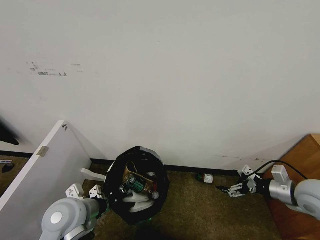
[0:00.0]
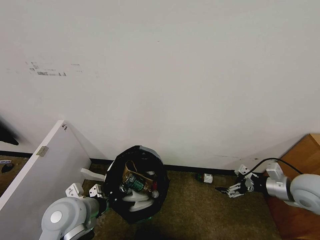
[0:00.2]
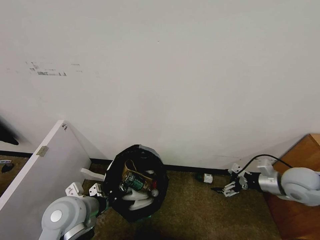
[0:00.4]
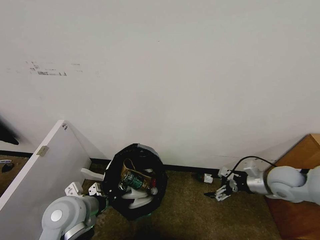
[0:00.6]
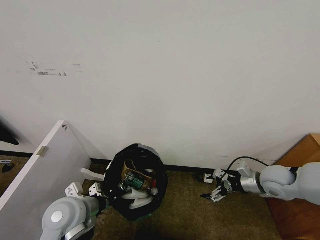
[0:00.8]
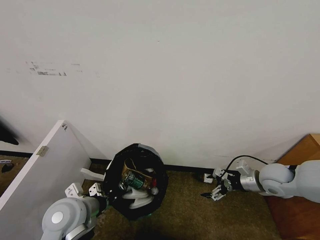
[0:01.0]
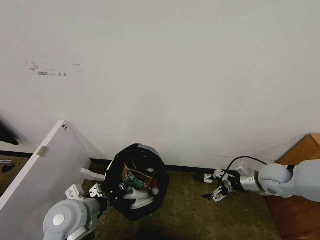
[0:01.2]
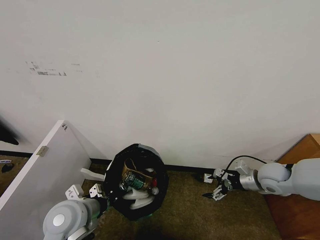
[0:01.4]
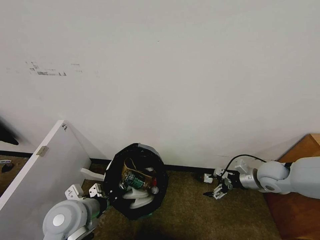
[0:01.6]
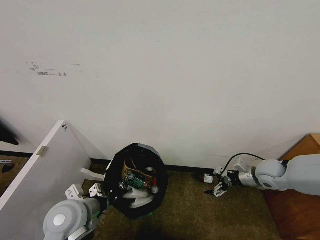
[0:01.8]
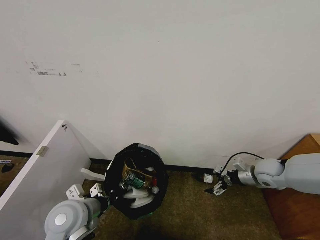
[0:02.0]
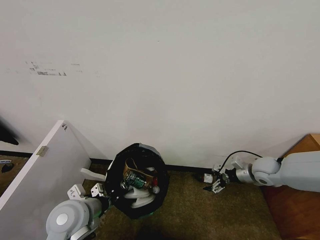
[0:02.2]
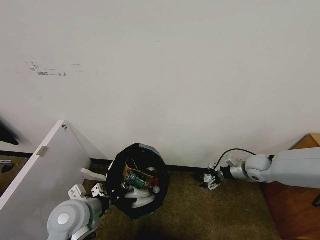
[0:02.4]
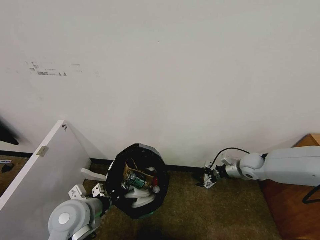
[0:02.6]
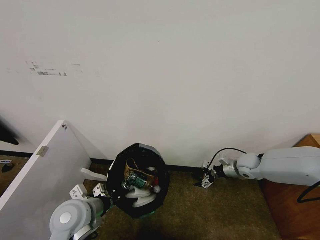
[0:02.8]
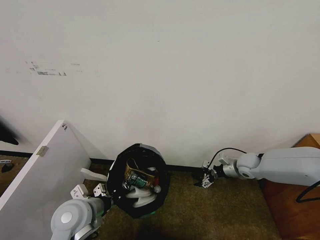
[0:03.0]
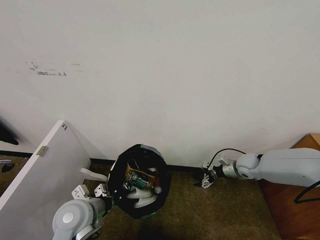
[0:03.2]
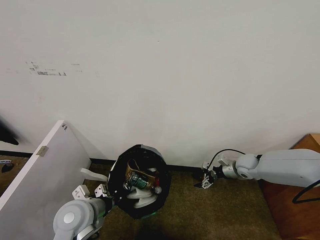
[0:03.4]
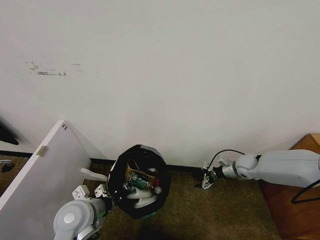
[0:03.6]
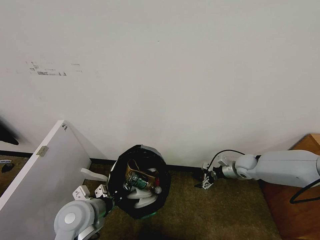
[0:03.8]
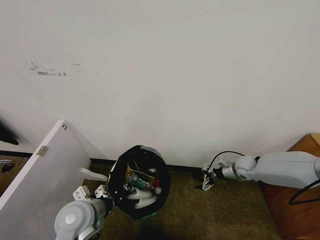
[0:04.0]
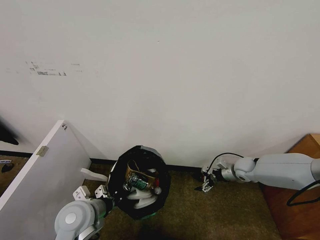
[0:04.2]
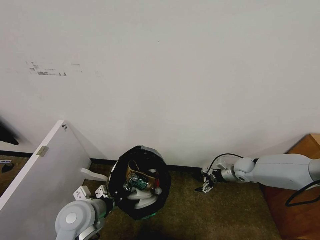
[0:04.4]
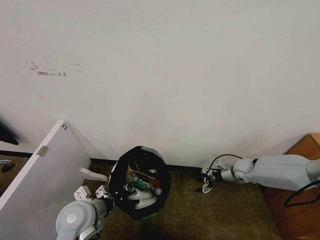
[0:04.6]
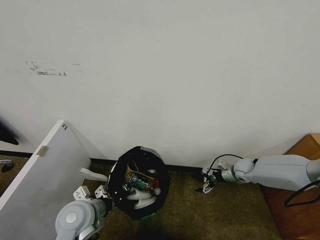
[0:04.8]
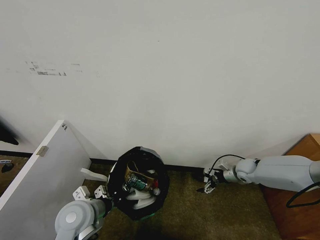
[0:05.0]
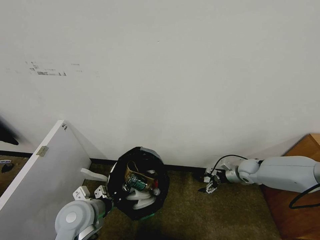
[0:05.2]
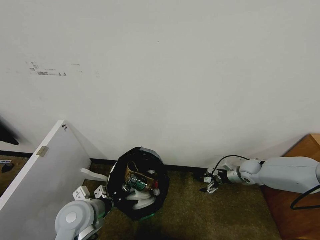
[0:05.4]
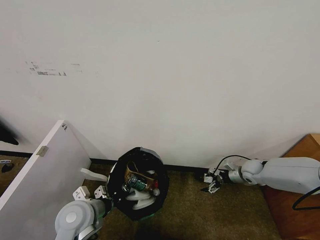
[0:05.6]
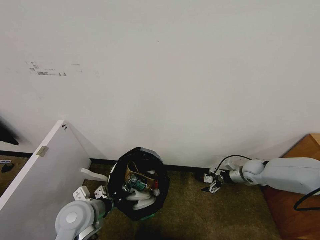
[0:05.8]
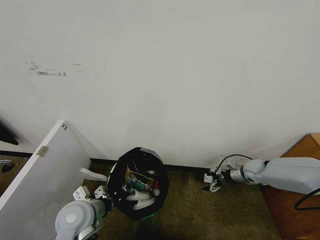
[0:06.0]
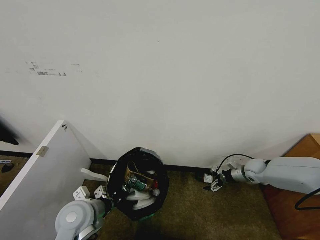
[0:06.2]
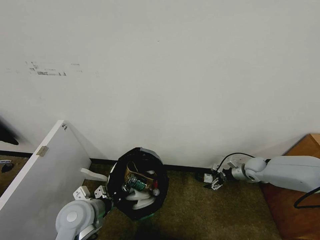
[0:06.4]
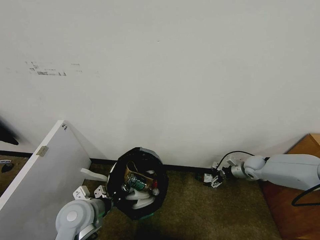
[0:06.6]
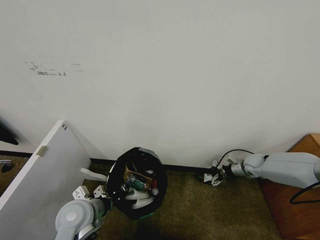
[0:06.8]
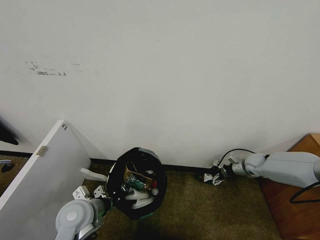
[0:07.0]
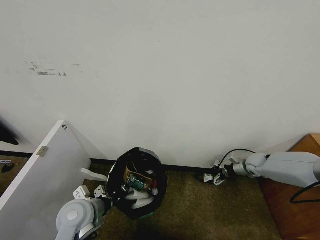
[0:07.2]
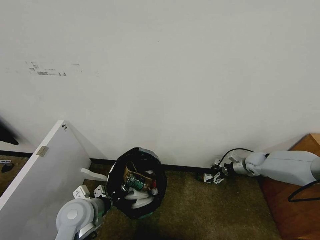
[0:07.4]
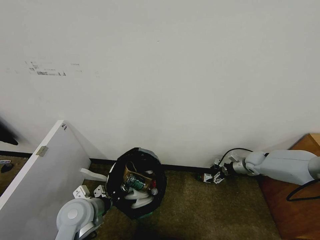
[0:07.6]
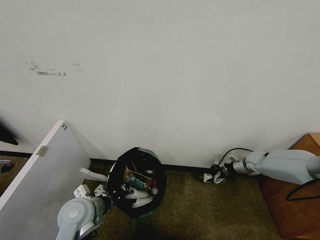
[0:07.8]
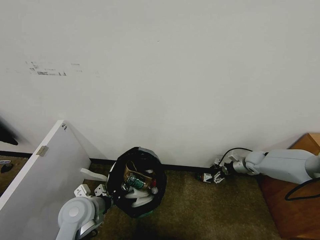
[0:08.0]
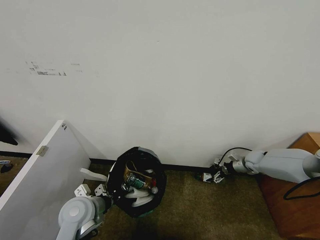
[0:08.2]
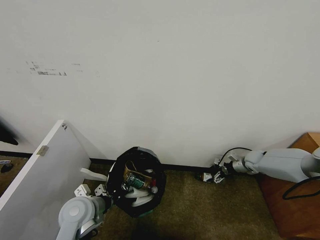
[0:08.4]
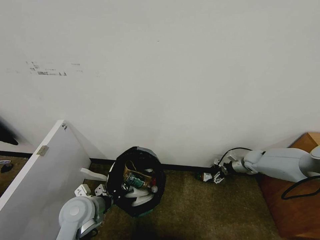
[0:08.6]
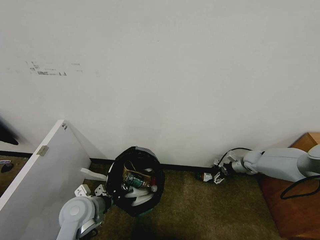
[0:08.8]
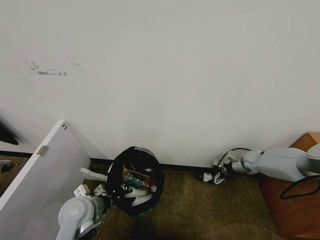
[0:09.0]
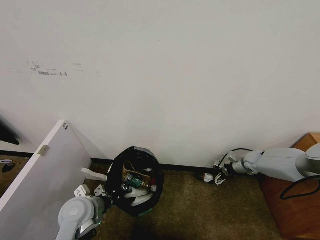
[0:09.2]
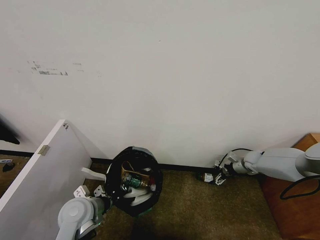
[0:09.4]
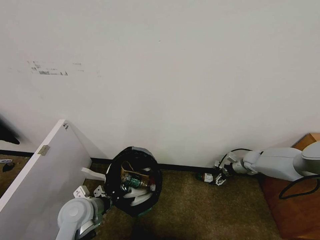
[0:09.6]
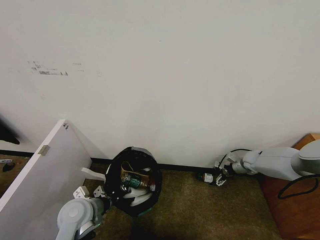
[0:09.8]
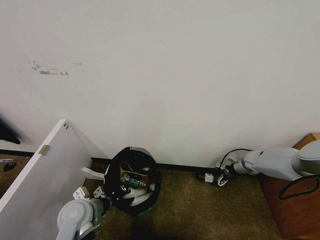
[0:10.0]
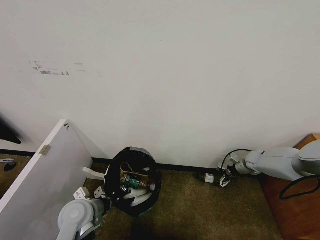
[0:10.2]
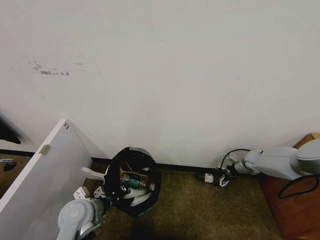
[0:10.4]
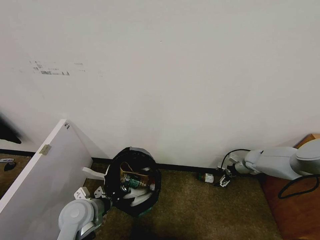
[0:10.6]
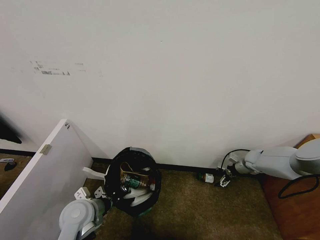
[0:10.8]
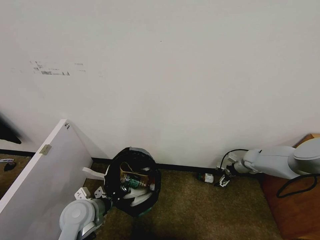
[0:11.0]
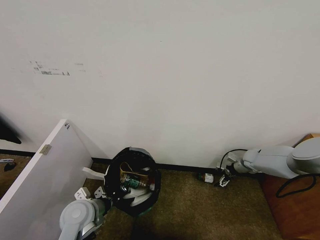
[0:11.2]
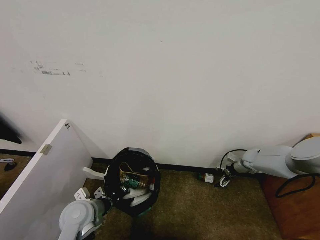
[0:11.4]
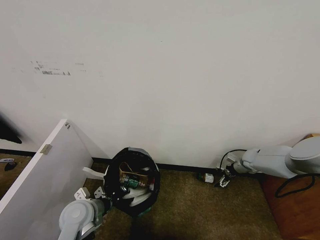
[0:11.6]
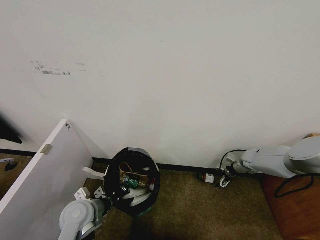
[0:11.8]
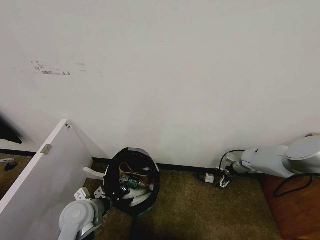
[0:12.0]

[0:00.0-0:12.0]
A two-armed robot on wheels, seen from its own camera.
Task of the whole recording: Pick up the trash bin and place the garbage on the floor into it.
0:00.0 to 0:01.6: The right gripper goes approximately 10 cm forward.
0:01.6 to 0:03.0: The right gripper is displaced forward and downward by roughly 10 cm.
0:03.0 to 0:04.4: The right gripper ends up roughly 5 cm from where it was.
0:04.4 to 0:06.0: The grippers stay close to where they were, moving slightly.
0:06.0 to 0:07.6: The right gripper moves about 5 cm.
0:07.6 to 0:12.0: The grippers stay close to where they were, moving slightly.

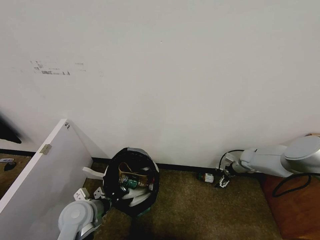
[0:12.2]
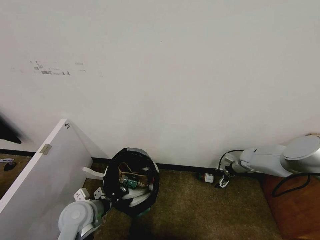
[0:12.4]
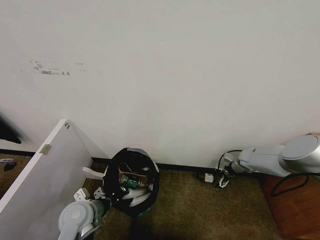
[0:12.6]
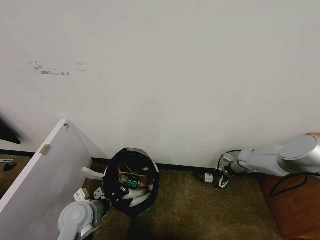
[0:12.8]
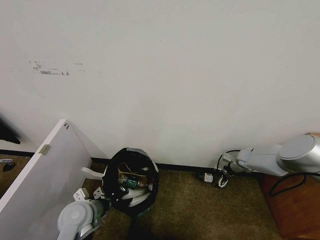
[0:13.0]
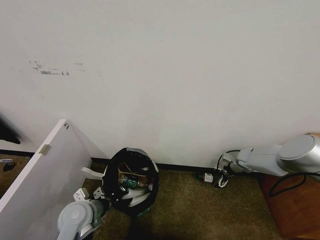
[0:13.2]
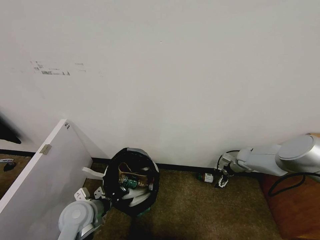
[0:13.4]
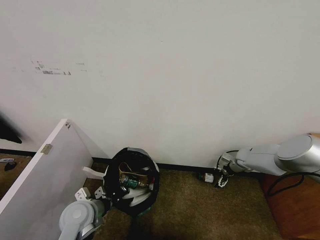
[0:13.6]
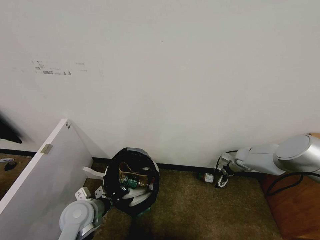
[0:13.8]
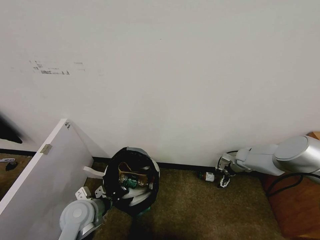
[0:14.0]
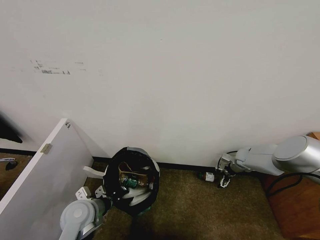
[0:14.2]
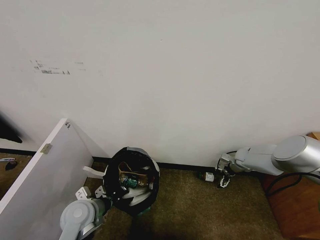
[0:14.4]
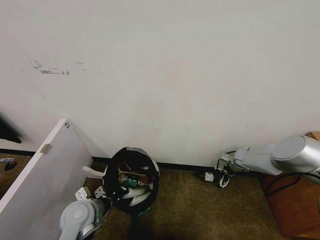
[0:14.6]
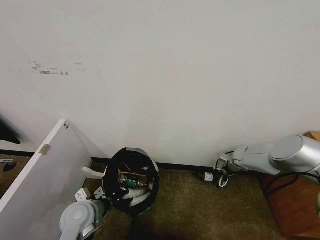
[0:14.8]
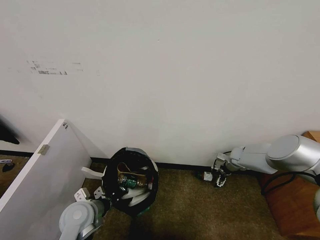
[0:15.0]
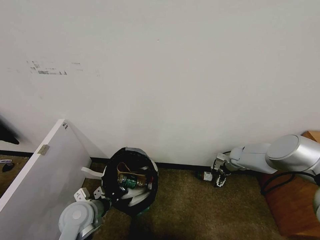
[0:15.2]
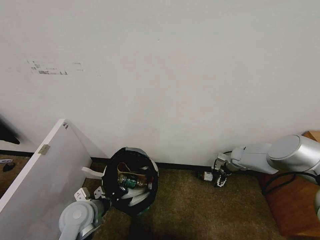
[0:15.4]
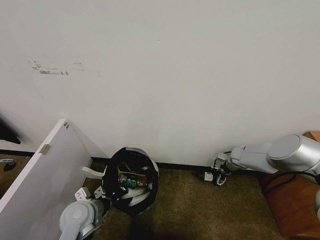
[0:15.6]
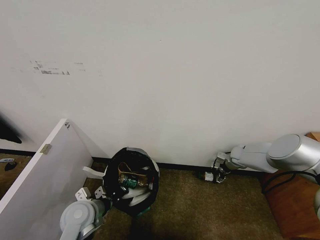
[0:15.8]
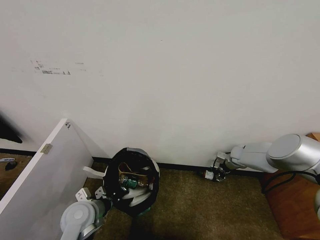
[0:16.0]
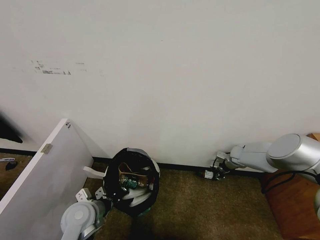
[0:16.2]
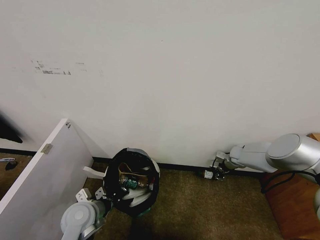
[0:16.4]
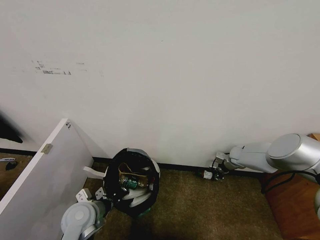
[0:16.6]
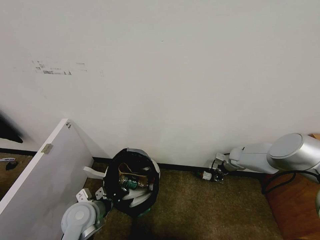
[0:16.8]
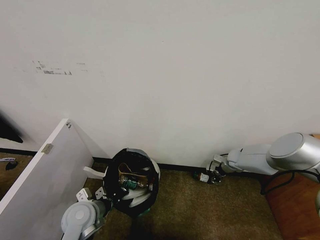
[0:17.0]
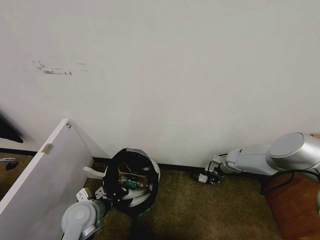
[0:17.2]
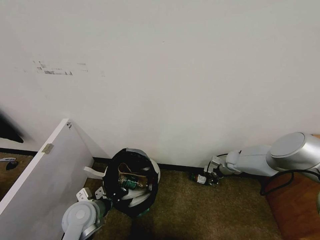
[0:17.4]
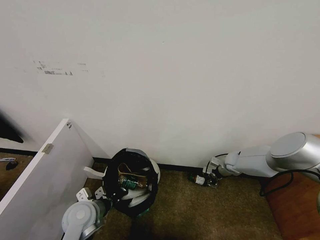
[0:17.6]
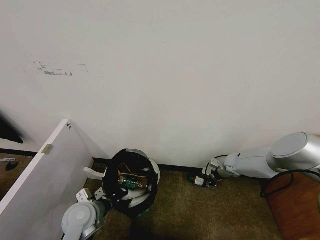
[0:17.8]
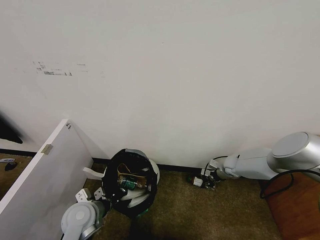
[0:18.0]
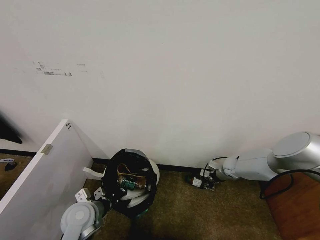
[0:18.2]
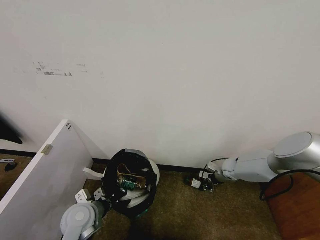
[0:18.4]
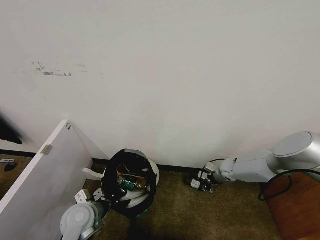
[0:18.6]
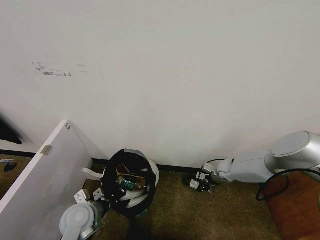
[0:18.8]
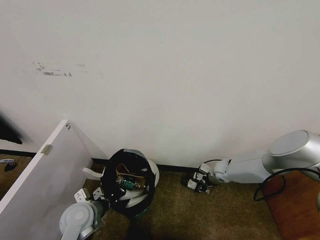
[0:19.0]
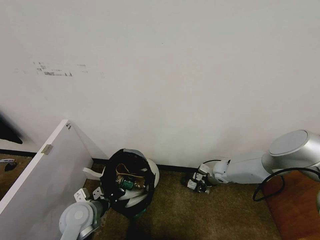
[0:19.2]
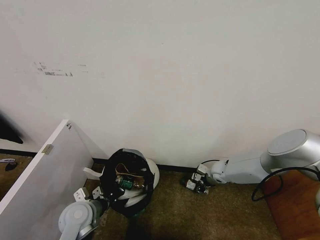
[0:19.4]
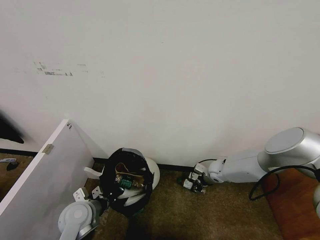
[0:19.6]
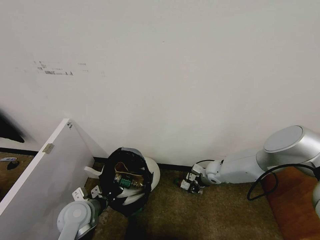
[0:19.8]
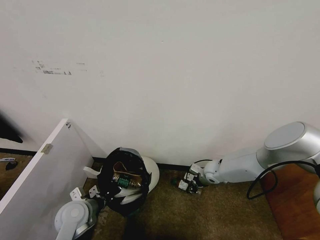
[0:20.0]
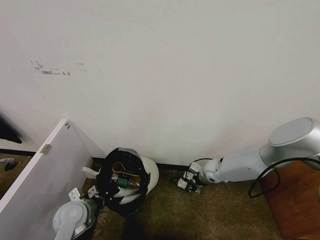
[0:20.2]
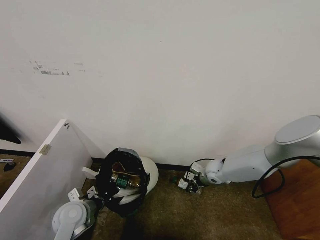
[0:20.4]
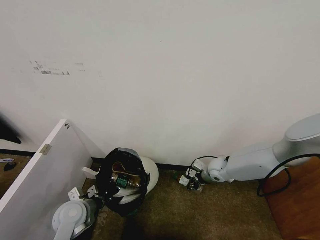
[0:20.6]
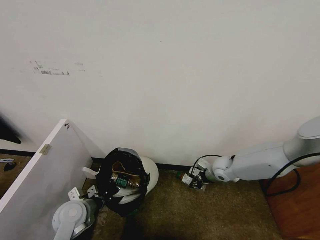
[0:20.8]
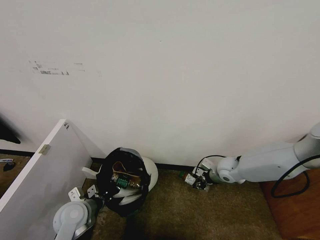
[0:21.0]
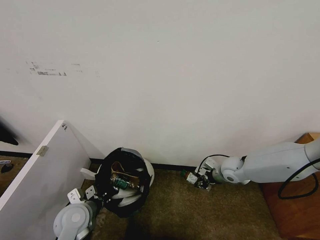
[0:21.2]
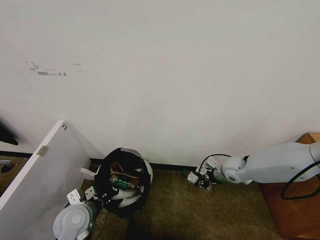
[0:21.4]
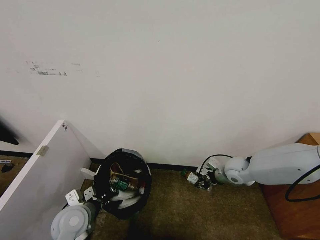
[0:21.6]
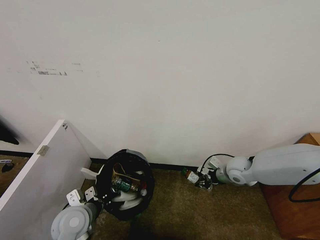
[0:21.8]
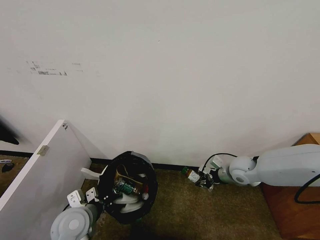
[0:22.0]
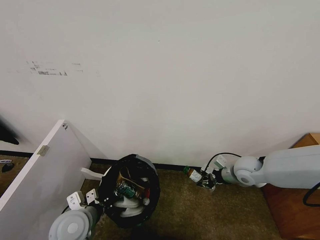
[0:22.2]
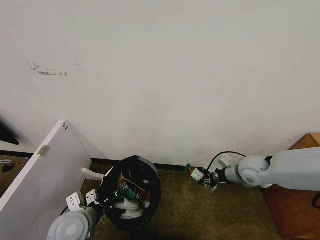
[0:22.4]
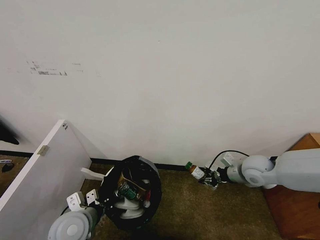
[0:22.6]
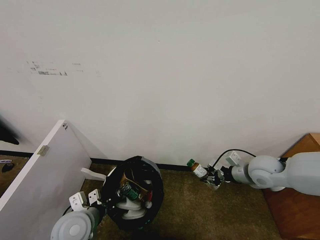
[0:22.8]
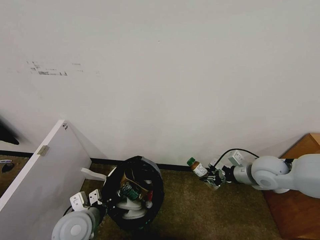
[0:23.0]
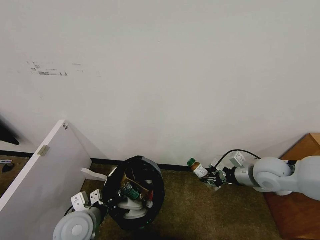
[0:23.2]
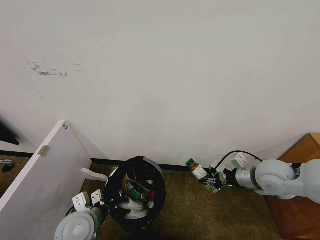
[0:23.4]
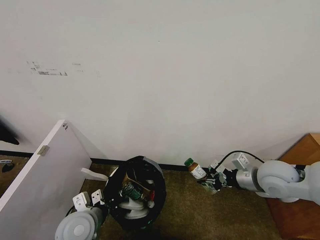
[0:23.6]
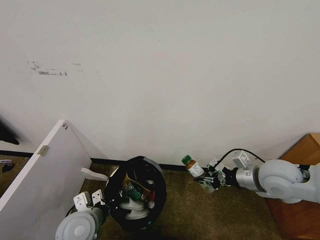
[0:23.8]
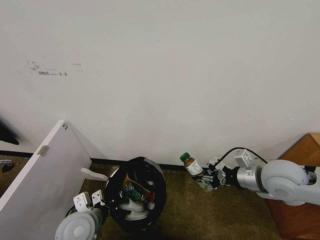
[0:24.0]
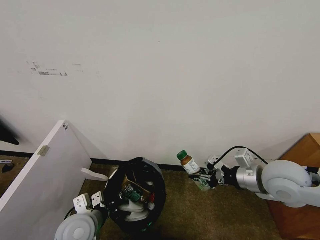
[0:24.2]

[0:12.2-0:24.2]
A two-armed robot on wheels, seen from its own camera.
Task of the whole recording: Pick up the trash bin and place the garbage on the floor into it.
0:12.2 to 0:15.2: The grippers stay close to where they were, moving slightly.
0:15.2 to 0:16.6: The right gripper closes its fingers.
0:16.6 to 0:18.2: The right gripper heads backward, covering about 5 cm.
0:18.2 to 0:19.8: The right gripper heads to the left, covering approximately 10 cm.
0:19.8 to 0:21.2: The right gripper is displaced upward by approximately 10 cm.
0:21.2 to 0:22.6: The right gripper travels upward by some 10 cm. Meanwhile the left gripper changes place by approximately 5 cm.
0:22.6 to 0:24.2: The right gripper shifts about 15 cm upward and backward.
